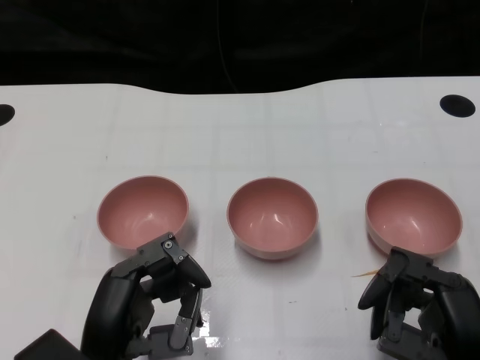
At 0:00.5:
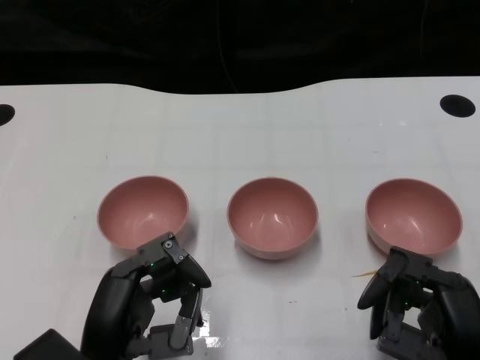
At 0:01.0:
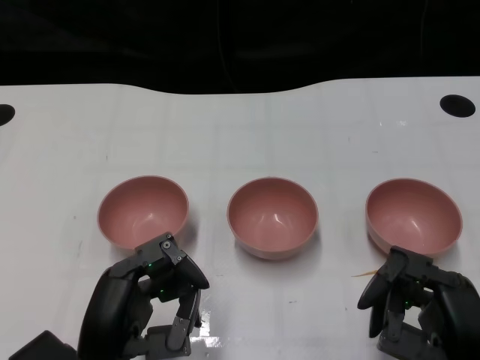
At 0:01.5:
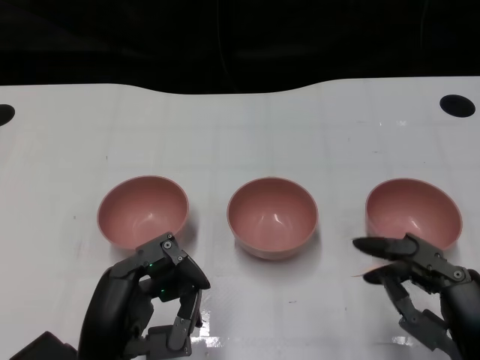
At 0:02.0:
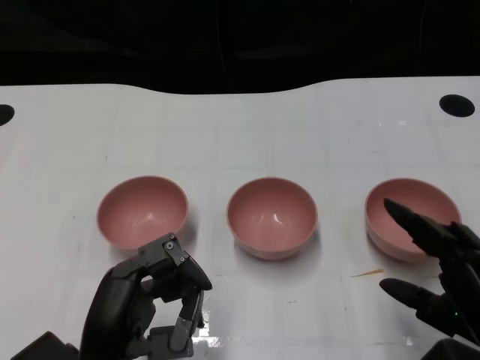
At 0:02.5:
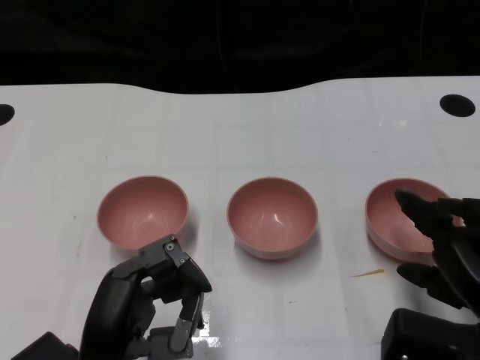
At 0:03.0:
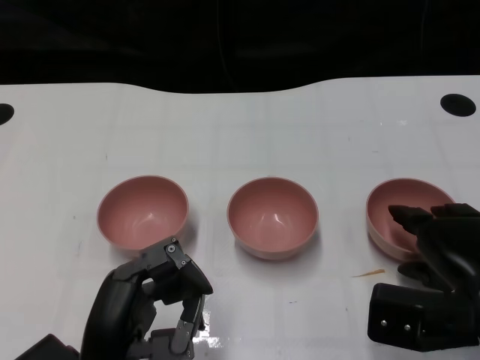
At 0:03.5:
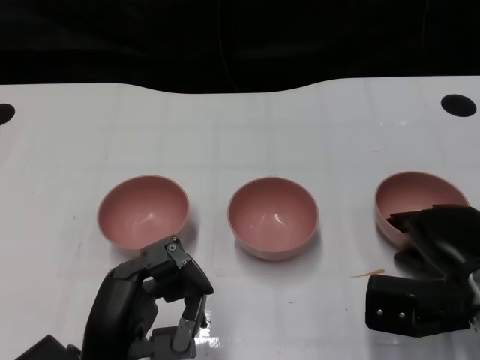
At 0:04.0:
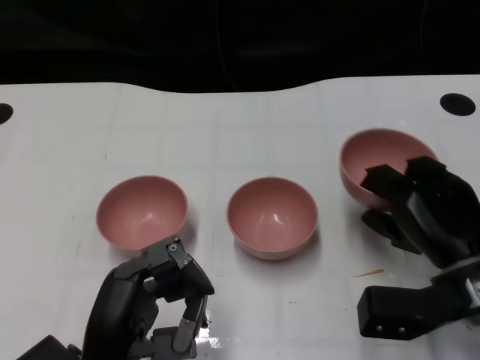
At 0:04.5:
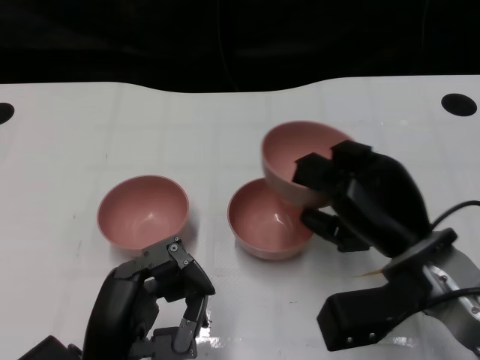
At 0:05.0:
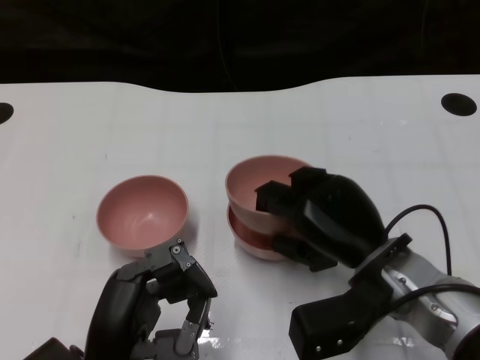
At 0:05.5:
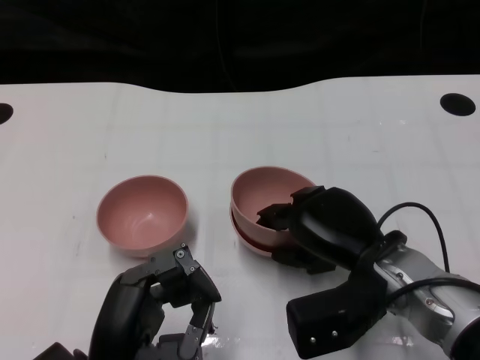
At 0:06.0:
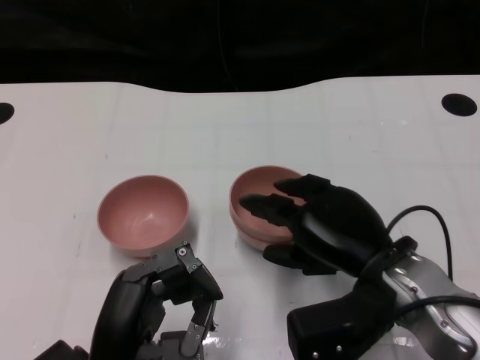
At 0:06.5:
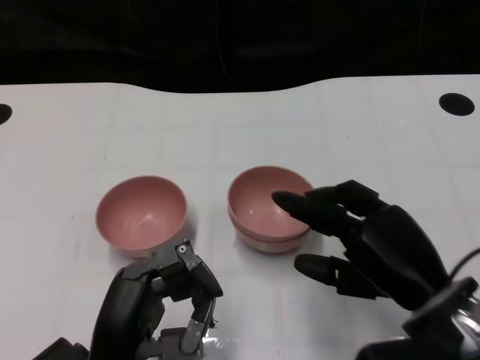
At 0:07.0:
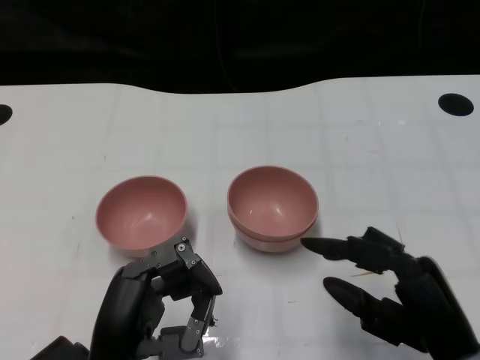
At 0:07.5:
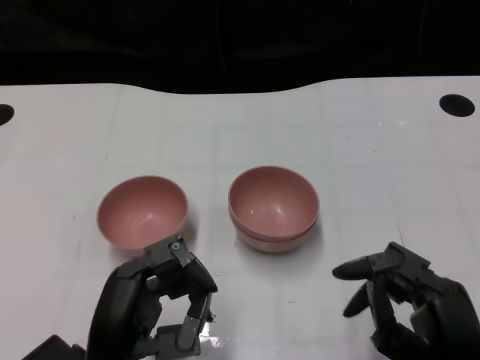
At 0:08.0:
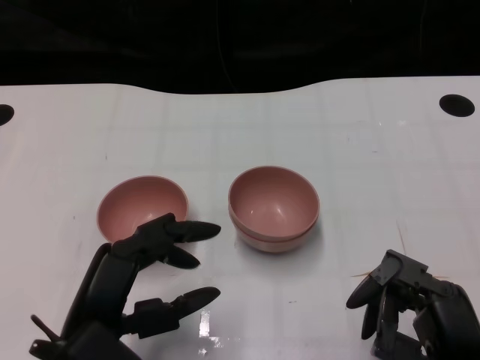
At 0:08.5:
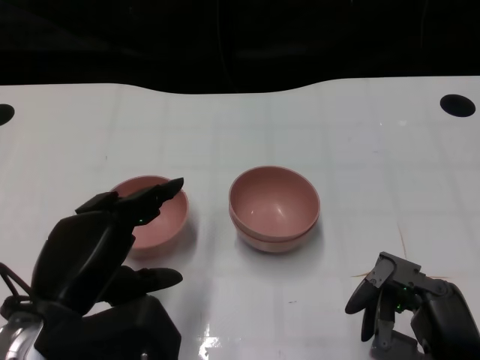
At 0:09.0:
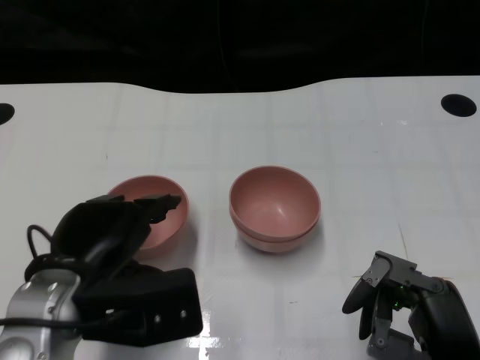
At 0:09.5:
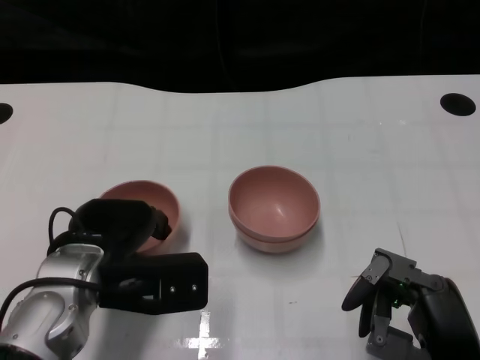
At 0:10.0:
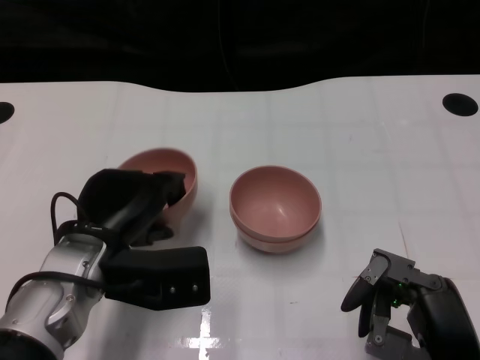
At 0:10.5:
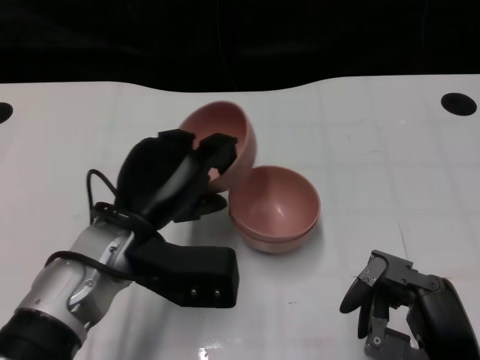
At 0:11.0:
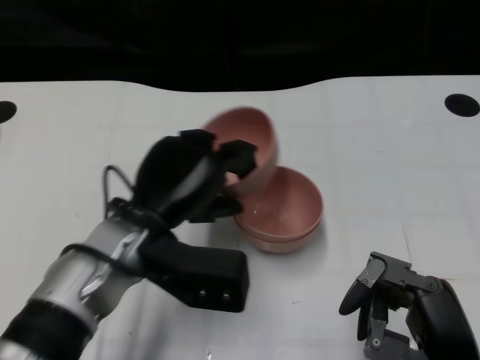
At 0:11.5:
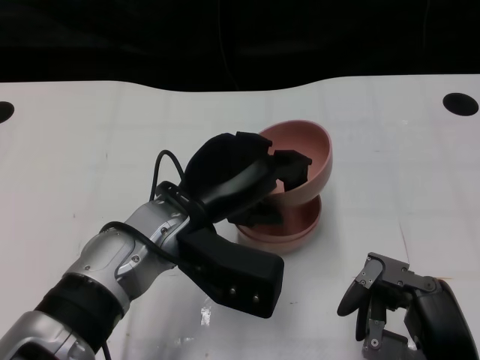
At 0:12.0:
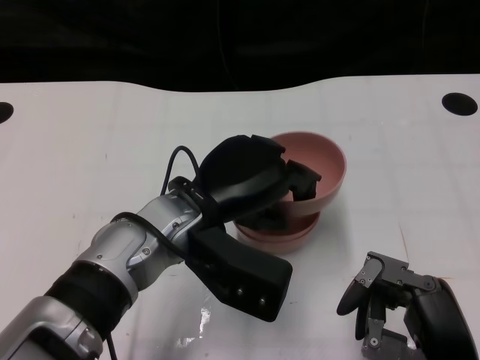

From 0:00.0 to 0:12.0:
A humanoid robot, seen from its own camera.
Task of the whole recording: Pick up the bowl on one side of the table and place it on top of the middle bowl, then pick up the bowl on the other side of the table and place it on top of the middle bowls.
Step, from 0:01.5 to 0:03.5: Grasp the bowl on the right with the right gripper.
Step, from 0:04.0 to 0:06.0: Place the bowl on the right onto the bowl in the middle with right gripper.
Step, from 0:06.5 to 0:09.5: Grasp the bowl on the left with the left gripper.
From 0:02.0 to 0:04.0: The right hand moves forward, about 10 cm.
From 0:04.0 to 0:06.0: The right hand heads to the left, covering about 10 cm.
From 0:06.0 to 0:08.0: The right hand is displaced backward and to the right by about 15 cm.
From 0:08.0 to 0:10.0: The left hand is displaced forward by roughly 10 cm.
From 0:10.0 to 0:12.0: The left hand goes about 10 cm to the right.

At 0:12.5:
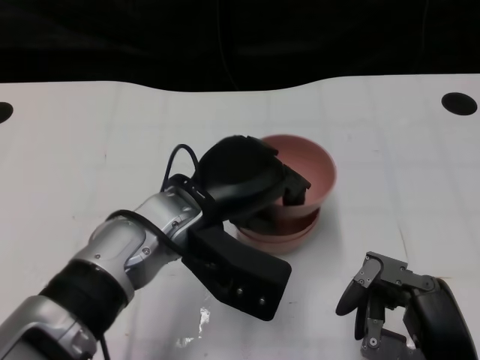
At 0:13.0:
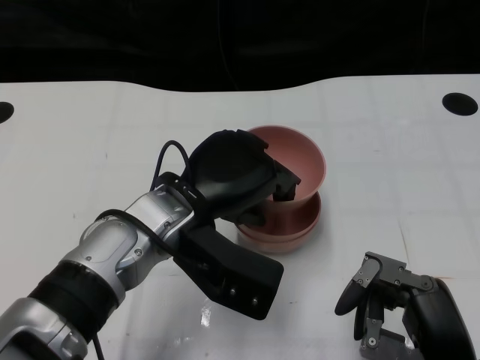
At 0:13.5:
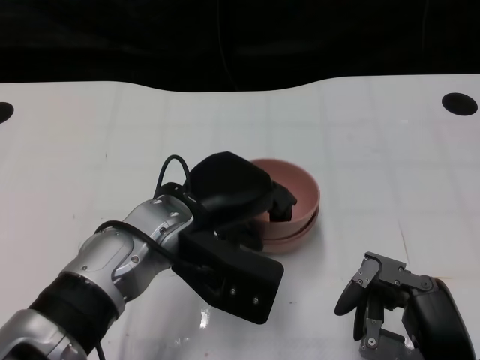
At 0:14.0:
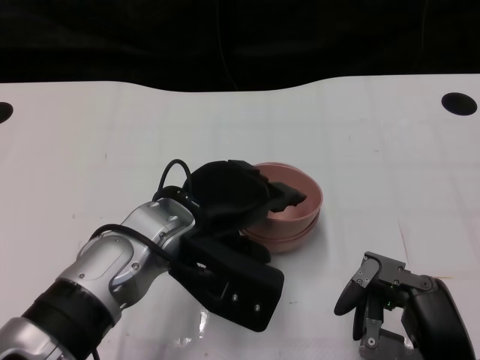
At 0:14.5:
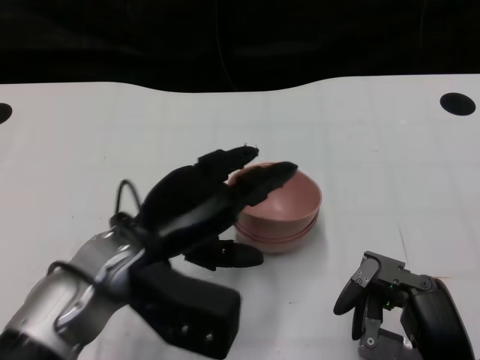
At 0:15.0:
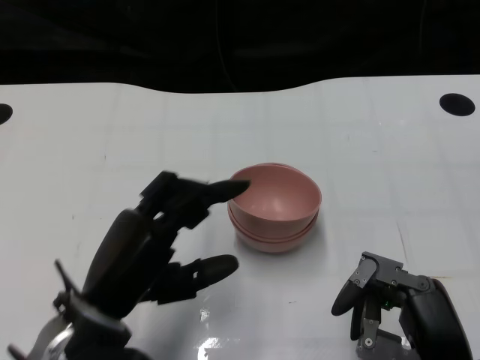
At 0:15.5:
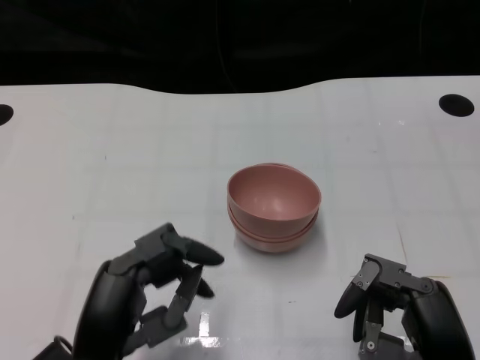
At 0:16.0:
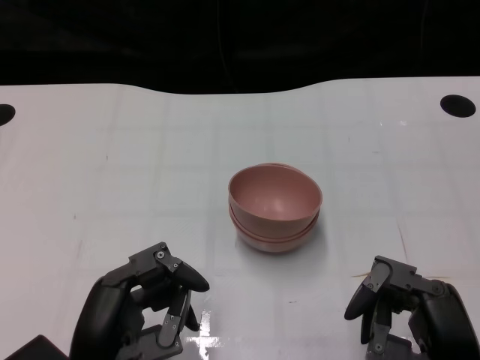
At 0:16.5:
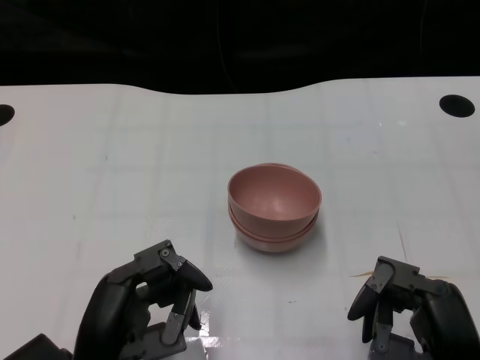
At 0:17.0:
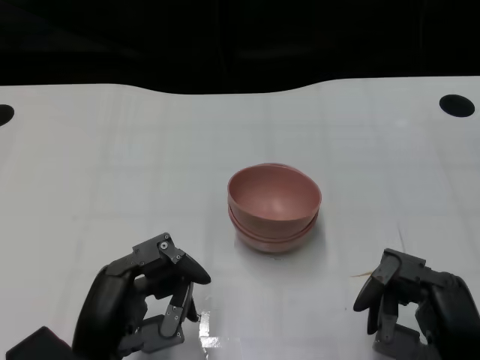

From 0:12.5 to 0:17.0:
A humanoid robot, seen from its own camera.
Task of the whole recording: Pick up the bowl on one side of the table and place it on top of the middle bowl, then pick up the bowl on the other side of the table and place it on top of the middle bowls.
Step, from 0:12.5 to 0:14.5: Place the bowl on the left onto the bowl in the middle with left gripper.
From 0:12.5 to 0:14.5: The left hand is displaced to the left by about 5 cm.
From 0:14.5 to 0:17.0: The left hand goes approximately 10 cm backward and downward.

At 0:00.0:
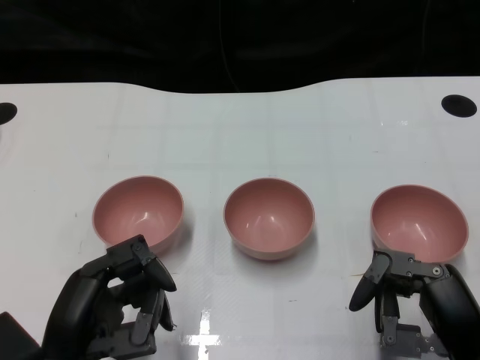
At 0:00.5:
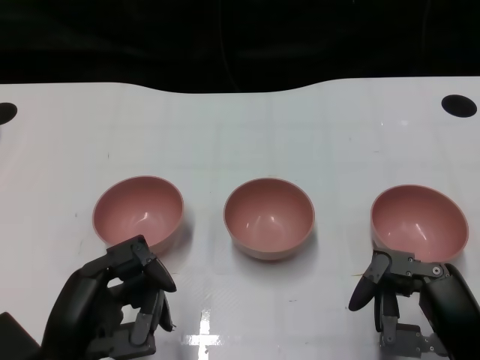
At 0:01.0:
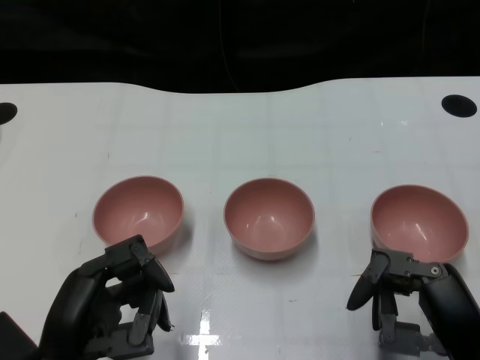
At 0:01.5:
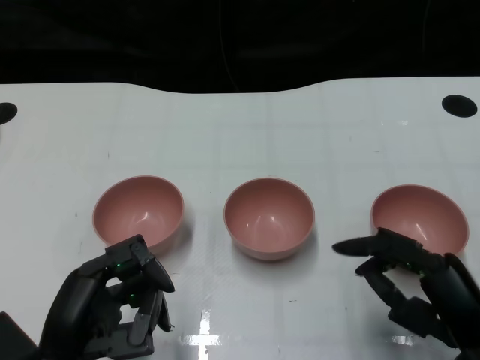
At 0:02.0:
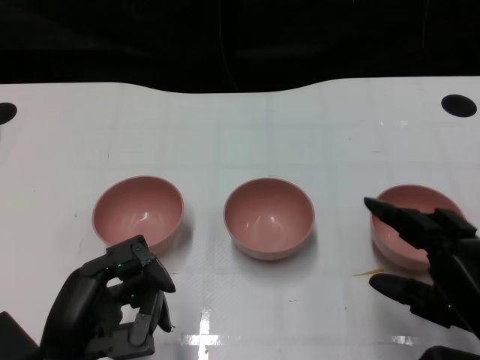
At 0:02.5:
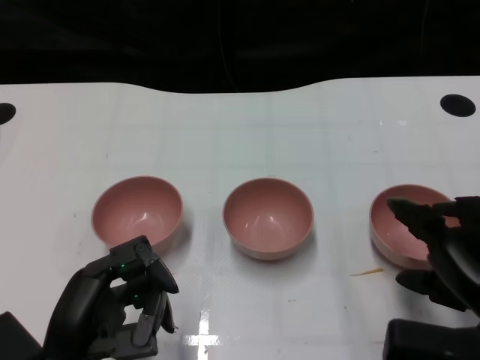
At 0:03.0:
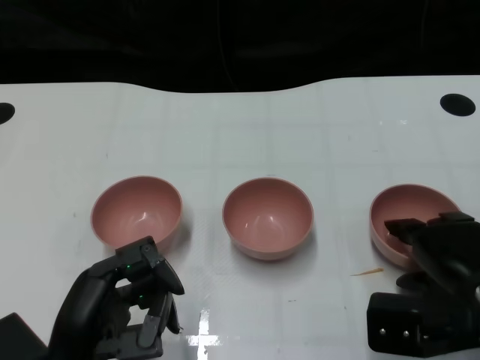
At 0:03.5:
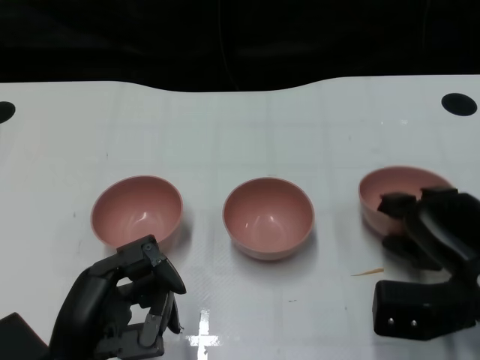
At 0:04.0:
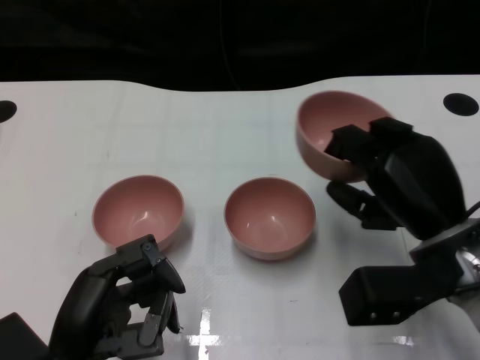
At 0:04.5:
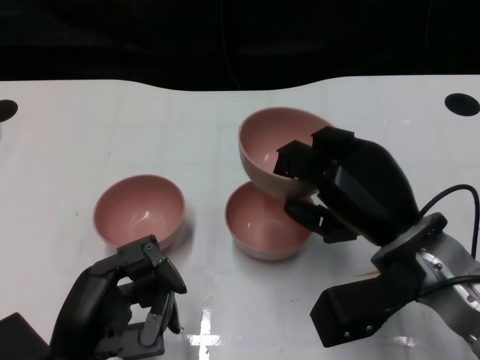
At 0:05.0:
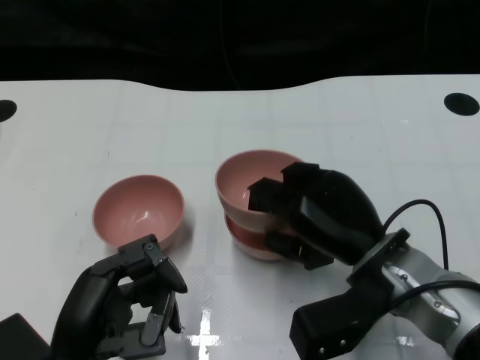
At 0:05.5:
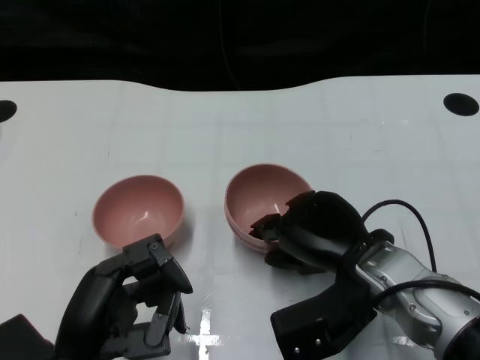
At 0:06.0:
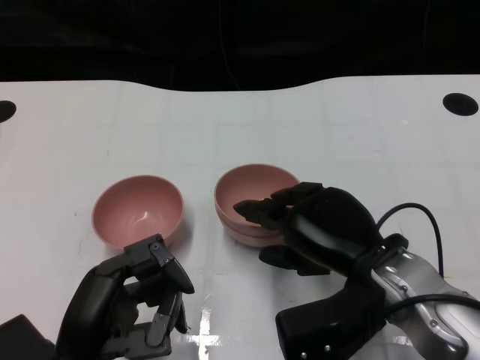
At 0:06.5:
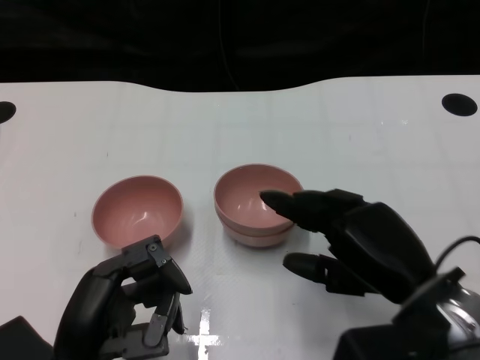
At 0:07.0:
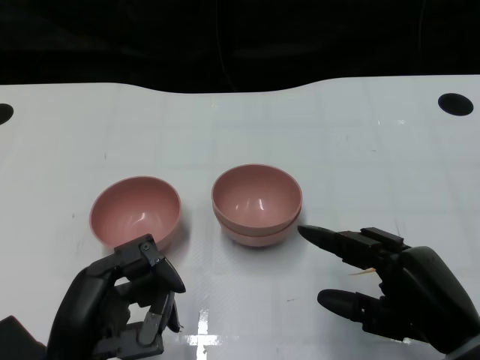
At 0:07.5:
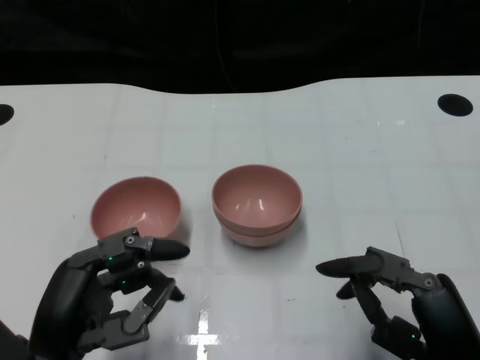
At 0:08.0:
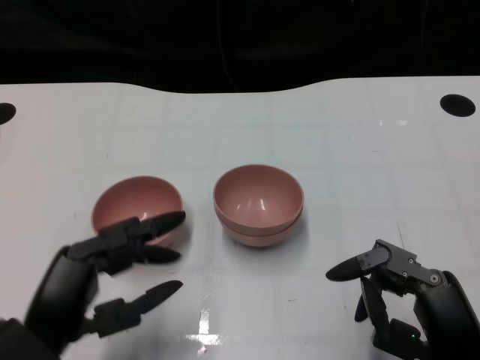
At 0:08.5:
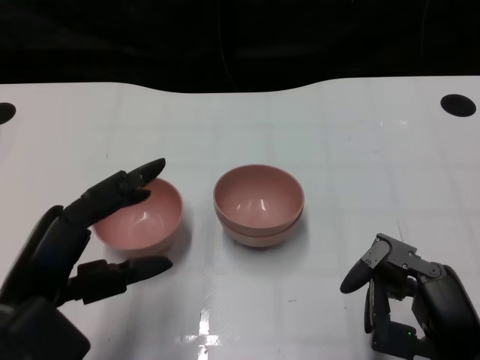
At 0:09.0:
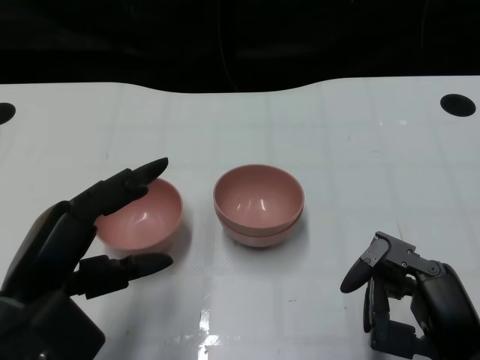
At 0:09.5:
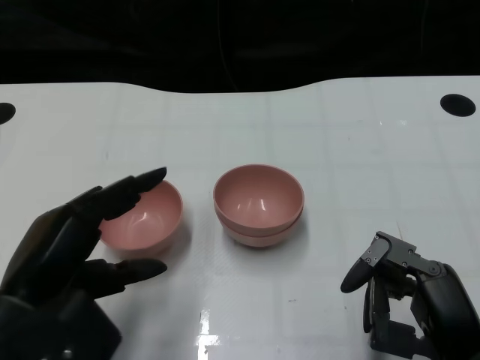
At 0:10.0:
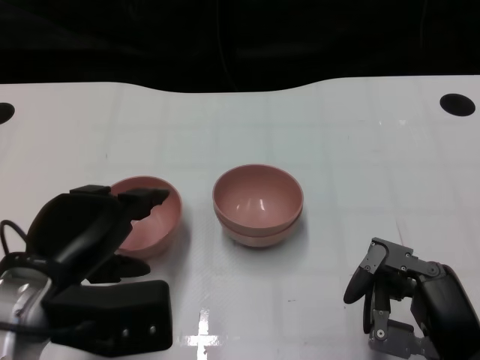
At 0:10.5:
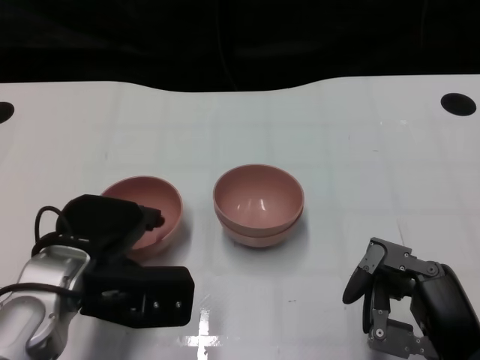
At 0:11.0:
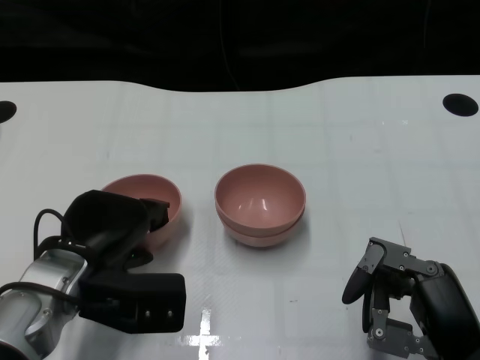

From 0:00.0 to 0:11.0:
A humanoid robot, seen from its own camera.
Task of the whole recording: Pick up the bowl on one side of the table and place it on top of the middle bowl, then pick up the bowl on the other side of the table and place it on top of the middle bowls.
Step, from 0:01.5 to 0:03.0: Grasp the bowl on the right with the right gripper.
Step, from 0:03.5 to 0:06.0: Place the bowl on the right onto the bowl in the middle with right gripper.
From 0:02.0 to 0:03.5: The right hand shifts approximately 10 cm forward.
From 0:03.5 to 0:05.5: The right hand heads to the left, covering about 10 cm.
From 0:05.5 to 0:07.5: The right hand travels backward and to the right by approximately 15 cm.
From 0:07.5 to 0:09.0: The left hand is displaced upward by approximately 5 cm.
From 0:09.0 to 0:11.0: The left hand is displaced forward and downward by roughly 10 cm.
